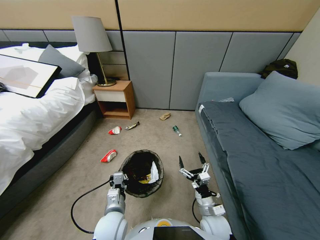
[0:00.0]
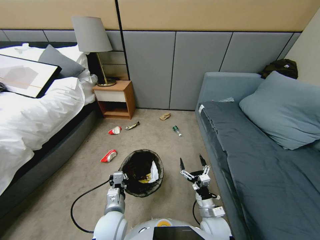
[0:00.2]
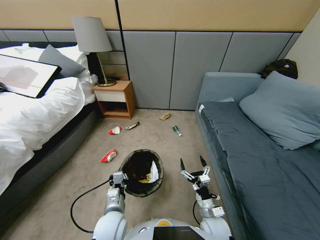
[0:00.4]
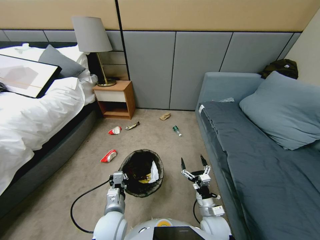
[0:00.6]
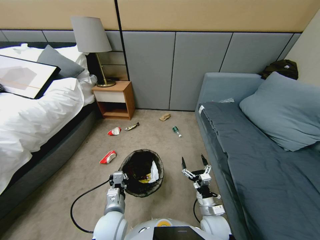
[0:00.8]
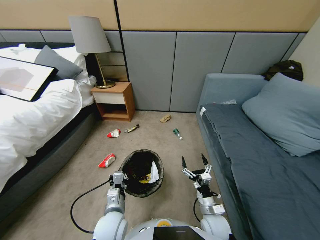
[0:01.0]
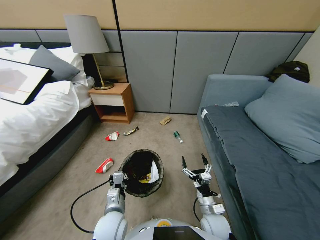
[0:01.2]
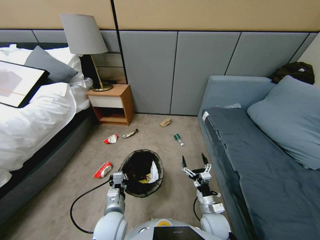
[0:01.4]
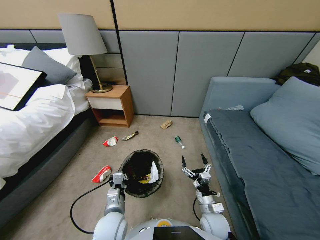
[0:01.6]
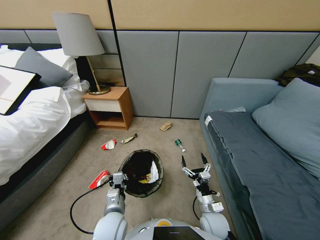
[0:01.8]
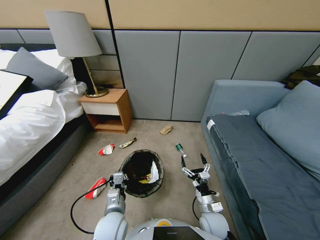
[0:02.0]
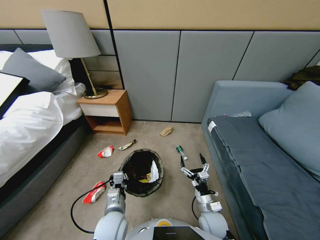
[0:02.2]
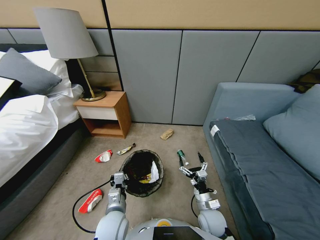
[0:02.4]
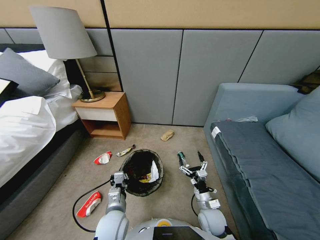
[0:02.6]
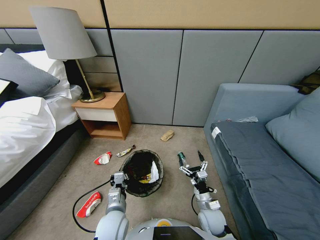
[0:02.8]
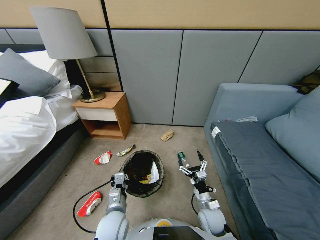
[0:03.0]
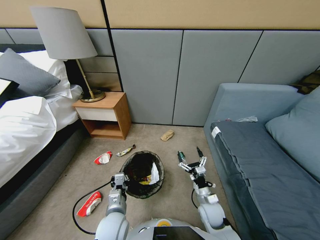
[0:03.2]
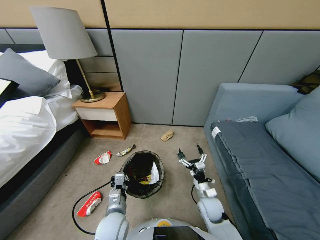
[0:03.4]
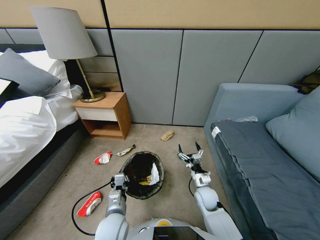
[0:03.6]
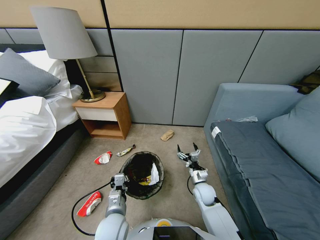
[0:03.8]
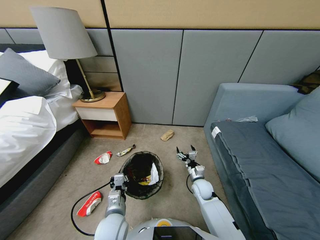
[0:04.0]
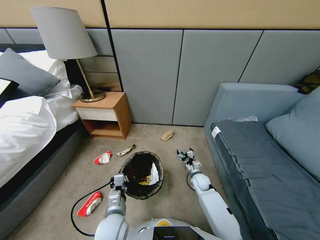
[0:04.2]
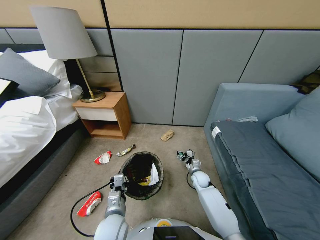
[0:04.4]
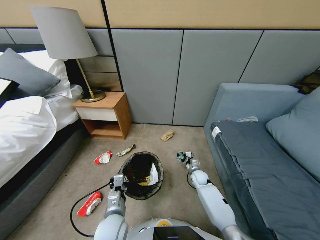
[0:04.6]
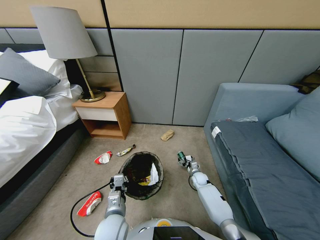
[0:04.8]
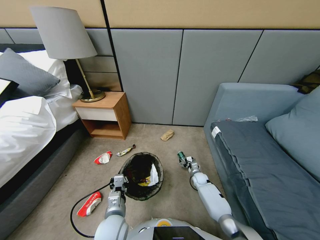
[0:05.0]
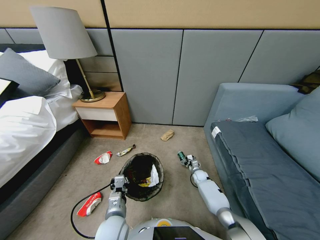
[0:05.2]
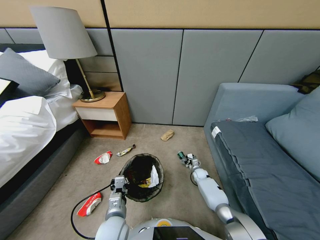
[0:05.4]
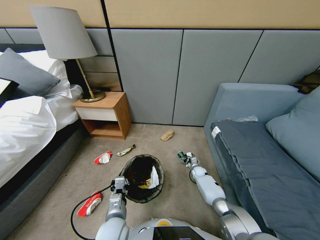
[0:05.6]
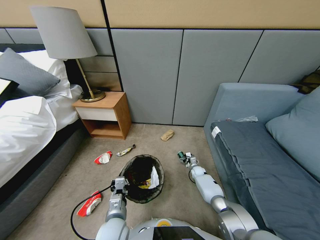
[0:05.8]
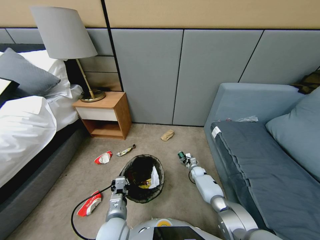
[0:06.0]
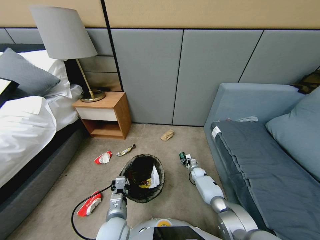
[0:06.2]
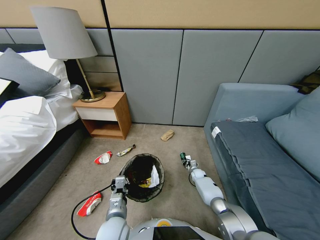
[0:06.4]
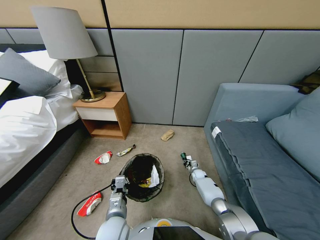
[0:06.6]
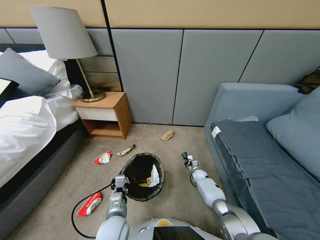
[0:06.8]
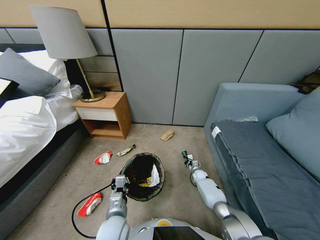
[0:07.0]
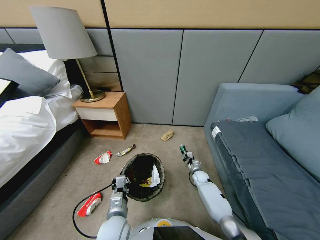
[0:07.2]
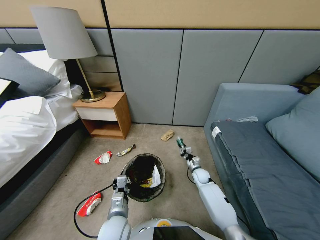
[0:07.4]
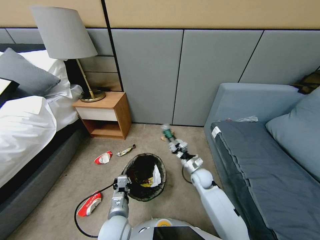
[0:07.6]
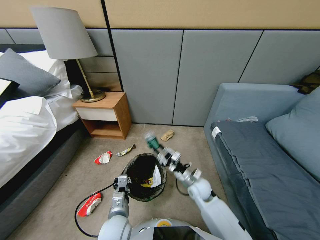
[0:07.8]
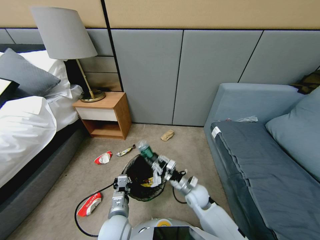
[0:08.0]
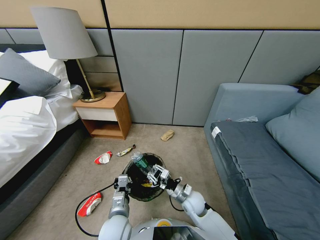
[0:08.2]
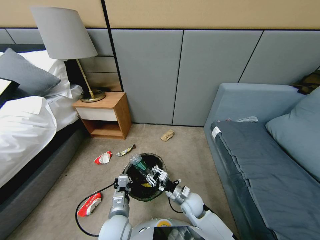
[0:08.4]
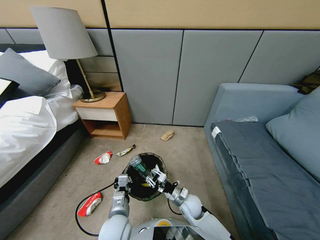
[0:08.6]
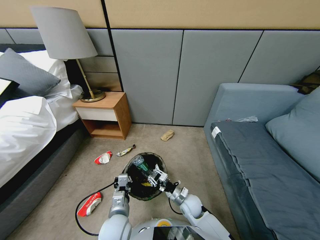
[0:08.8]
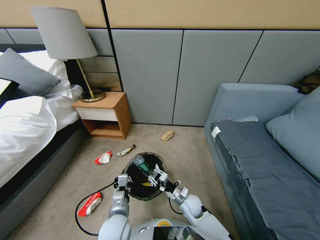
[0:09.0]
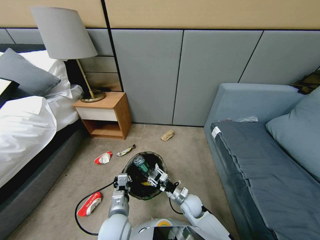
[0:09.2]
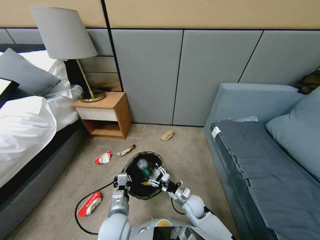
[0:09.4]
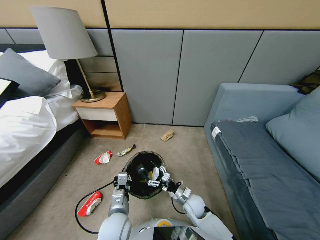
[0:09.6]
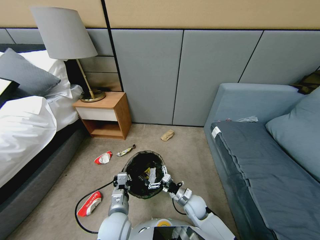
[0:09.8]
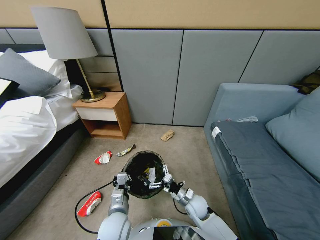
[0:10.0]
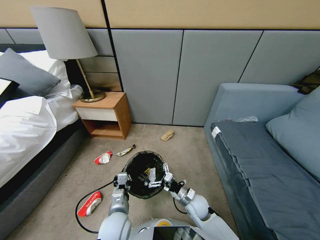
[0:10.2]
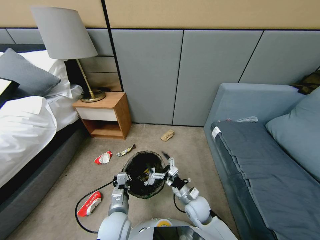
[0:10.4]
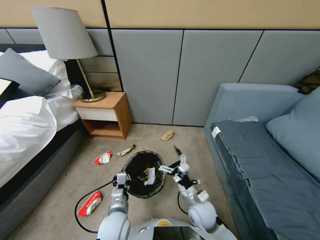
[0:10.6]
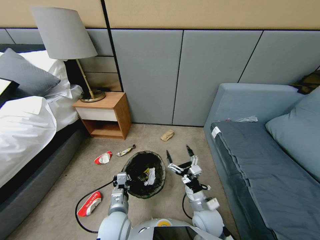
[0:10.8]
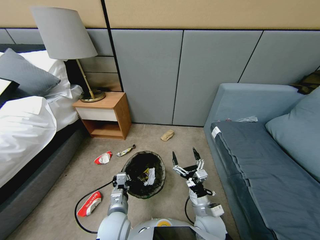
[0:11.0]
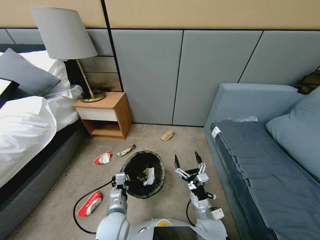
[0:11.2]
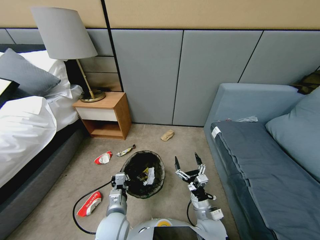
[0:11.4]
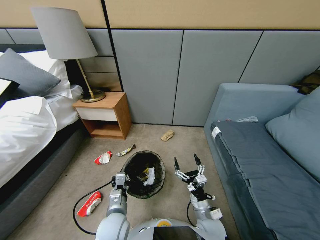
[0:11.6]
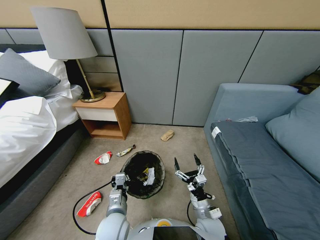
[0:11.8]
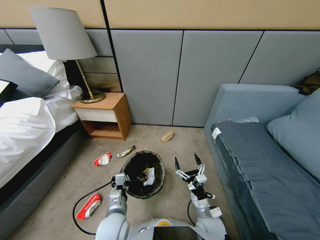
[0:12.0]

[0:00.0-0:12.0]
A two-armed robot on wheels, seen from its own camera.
Task of the whole recording: Pick up the trash bin, then pick up the garbage from the floor and place it into the trash bin.
0:03.0 to 0:04.4: The right gripper goes approximately 20 cm forward and downward.
0:04.4 to 0:06.0: The right gripper moves downward and forward, some 10 cm.
0:06.0 to 0:07.6: The right gripper heads upward, backward and to the left, covering roughly 25 cm, and closes up.
0:07.6 to 0:09.0: The right gripper shifts some 10 cm downward and backward.
0:09.0 to 0:10.4: The right gripper is displaced upward by about 10 cm, and opens its fingers.
0:10.4 to 0:12.0: The right gripper moves roughly 5 cm.

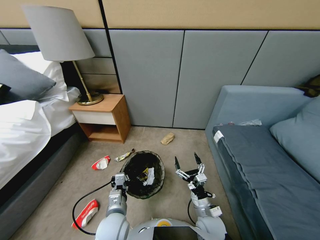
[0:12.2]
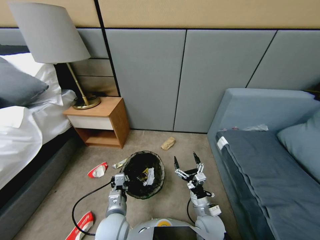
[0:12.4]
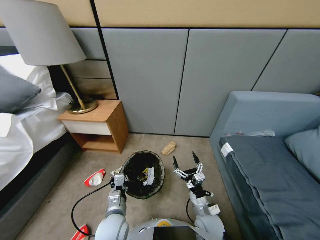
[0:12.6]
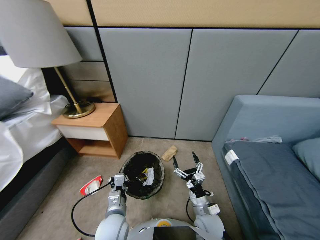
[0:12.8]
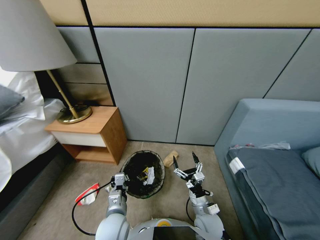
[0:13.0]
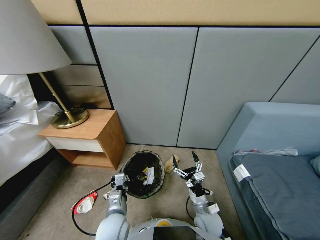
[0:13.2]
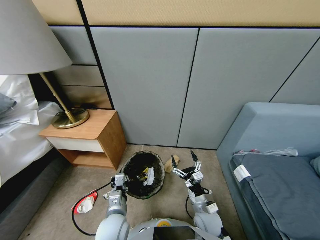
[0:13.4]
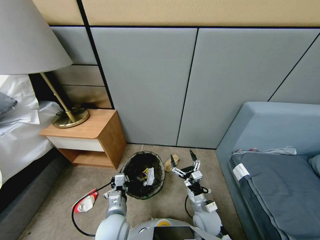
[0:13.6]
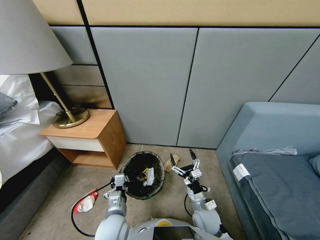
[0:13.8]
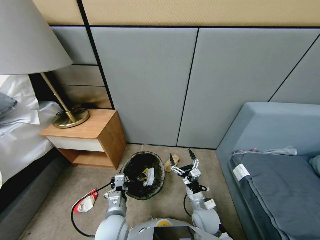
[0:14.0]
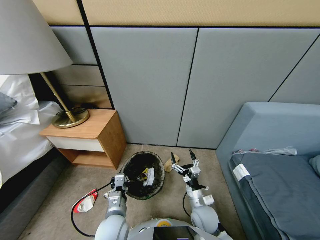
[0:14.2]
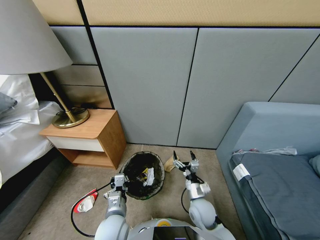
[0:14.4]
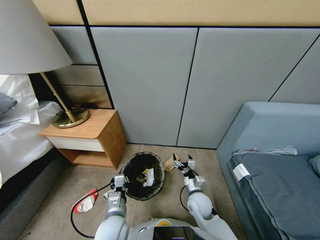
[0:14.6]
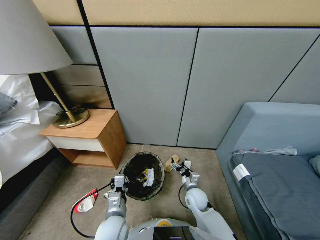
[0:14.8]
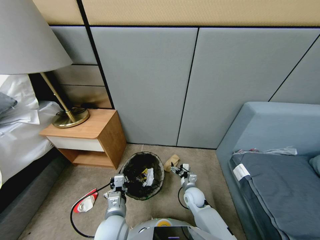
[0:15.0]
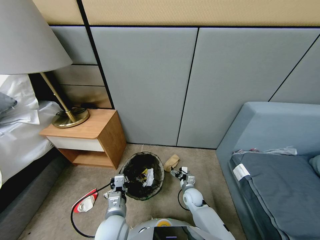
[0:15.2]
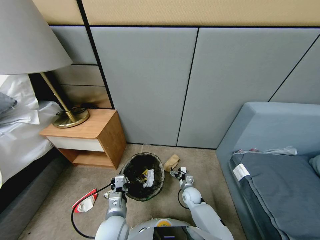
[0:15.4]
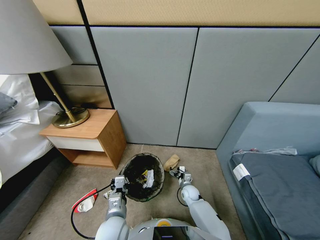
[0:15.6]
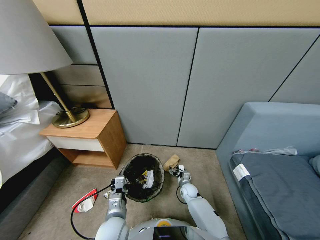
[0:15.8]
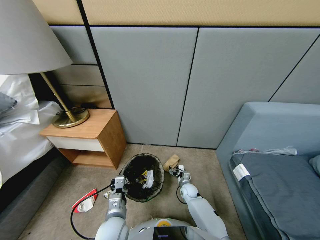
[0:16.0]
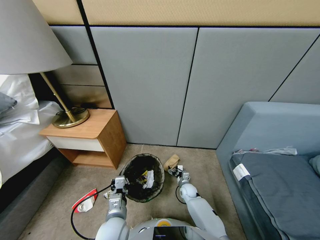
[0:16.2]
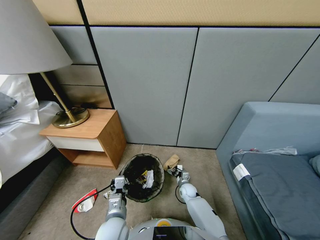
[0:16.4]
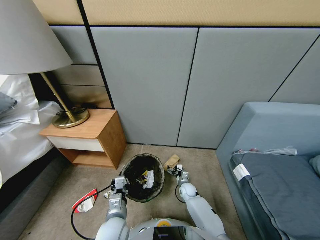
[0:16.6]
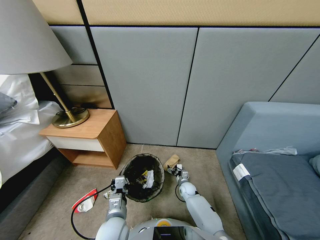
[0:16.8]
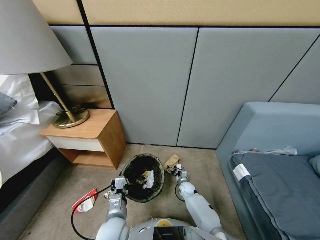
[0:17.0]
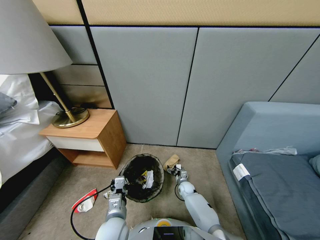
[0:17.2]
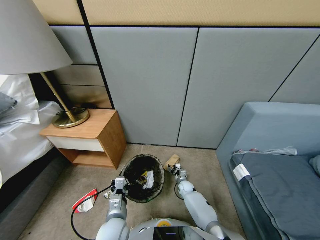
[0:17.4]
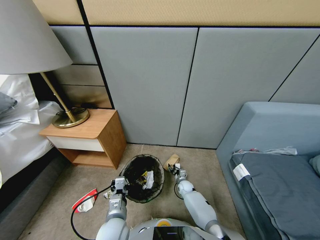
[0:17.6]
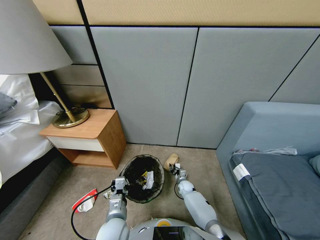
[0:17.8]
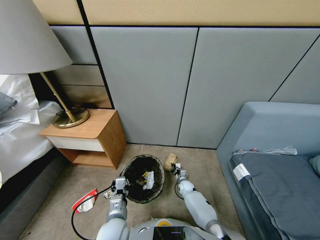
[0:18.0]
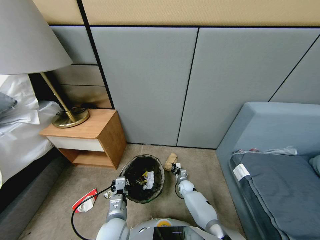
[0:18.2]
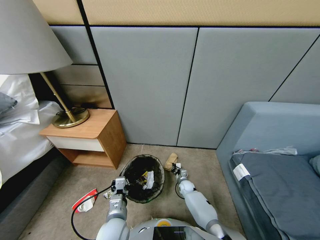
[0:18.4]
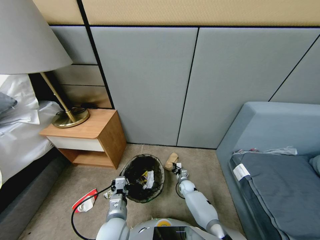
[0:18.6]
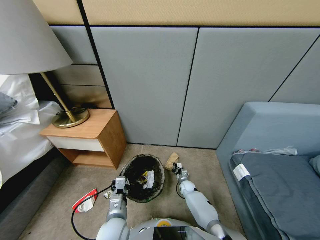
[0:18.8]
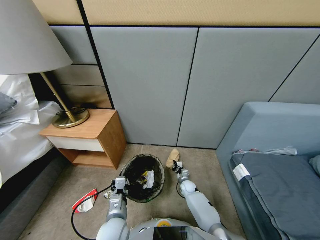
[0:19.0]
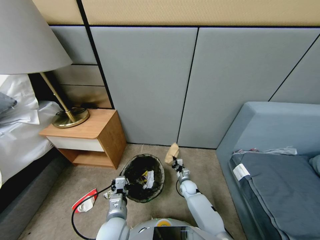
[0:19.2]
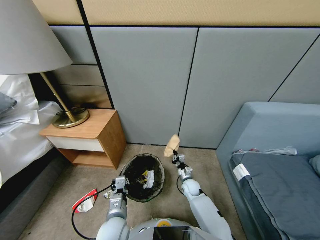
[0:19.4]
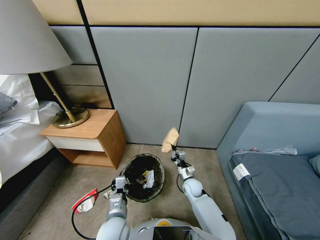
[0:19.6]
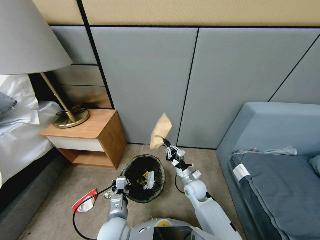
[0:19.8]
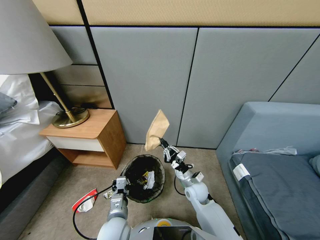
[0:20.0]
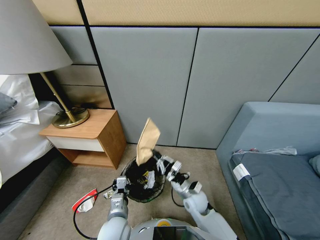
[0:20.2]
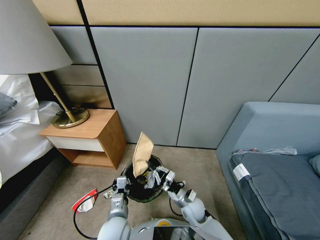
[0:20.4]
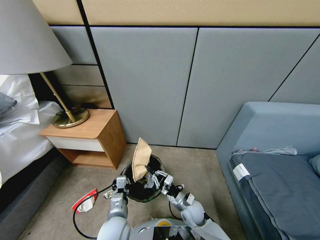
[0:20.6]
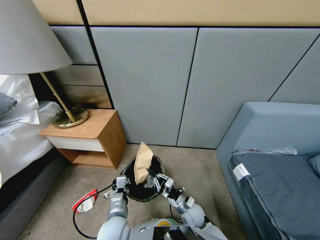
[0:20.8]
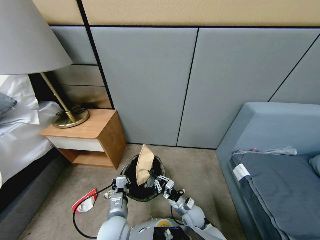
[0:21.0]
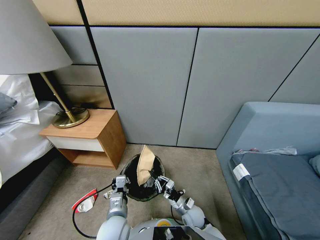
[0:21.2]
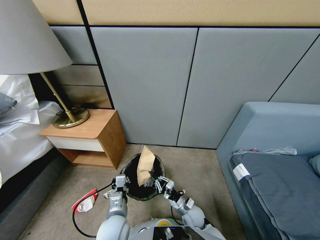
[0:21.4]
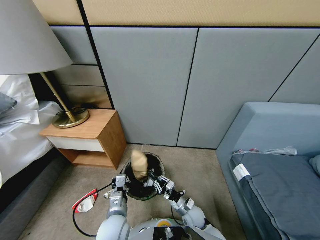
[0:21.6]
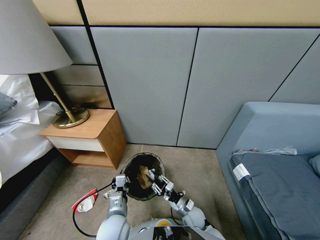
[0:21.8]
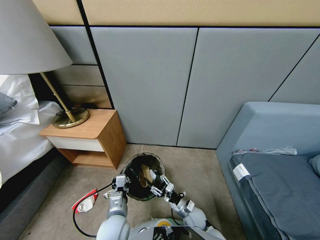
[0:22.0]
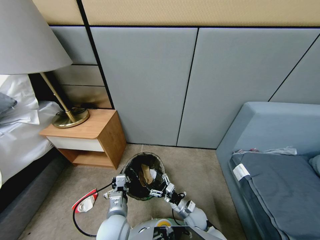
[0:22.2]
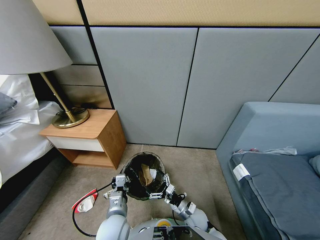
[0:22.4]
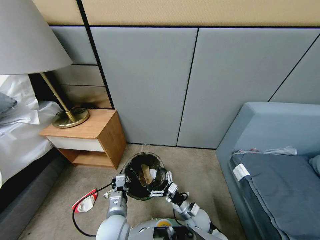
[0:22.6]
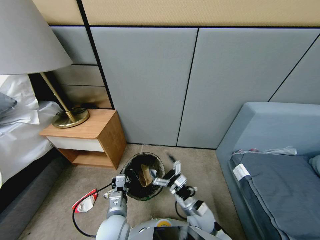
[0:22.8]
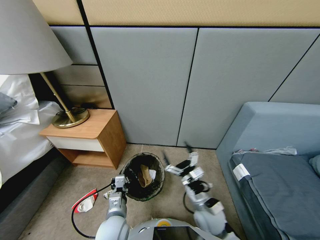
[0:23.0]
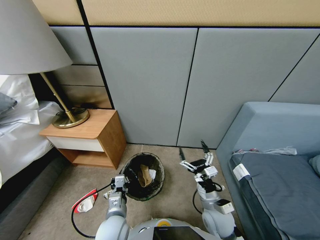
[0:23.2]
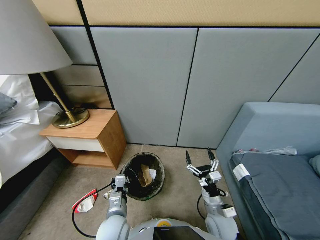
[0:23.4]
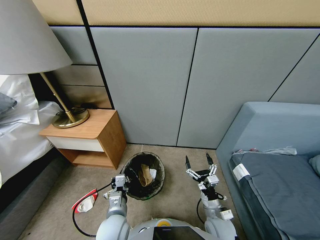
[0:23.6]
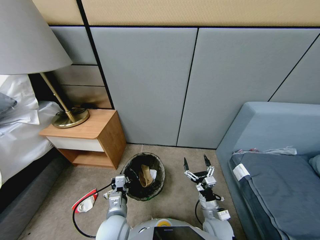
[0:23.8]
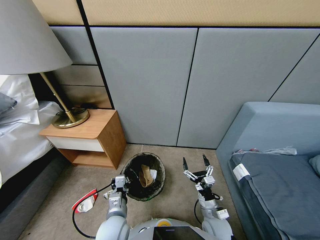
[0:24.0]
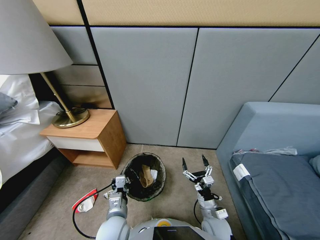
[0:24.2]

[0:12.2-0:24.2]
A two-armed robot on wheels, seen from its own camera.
Task of the whole recording: Pick up the trash bin, then pick up the garbage from the floor and place it into the trash bin.
0:13.8 to 0:15.2: The right gripper goes about 15 cm downward and forward.
0:15.2 to 0:16.6: The right gripper shifts by roughly 5 cm.
0:16.6 to 0:18.2: The right gripper closes up.
0:18.2 to 0:19.8: The right gripper travels upward by about 20 cm.
0:19.8 to 0:21.2: The right gripper moves downward and backward, approximately 15 cm.
0:21.2 to 0:22.6: The right gripper heads upward, covering about 5 cm, and opens.
0:22.6 to 0:24.2: The right gripper moves to the right, roughly 5 cm, and goes upward and returns, roughly 10 cm each way.
